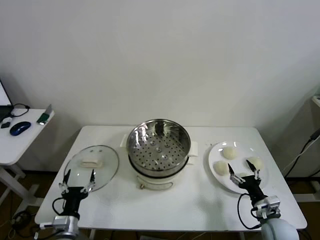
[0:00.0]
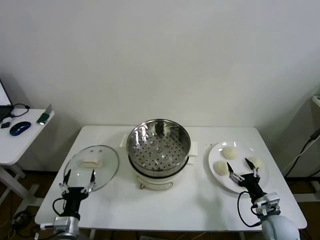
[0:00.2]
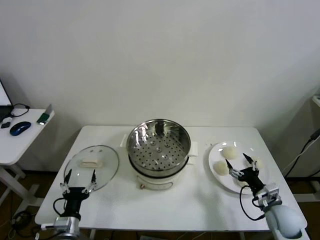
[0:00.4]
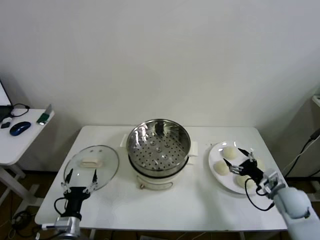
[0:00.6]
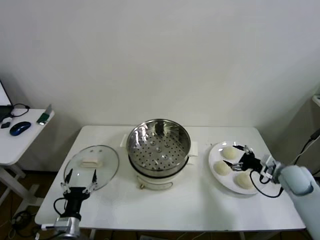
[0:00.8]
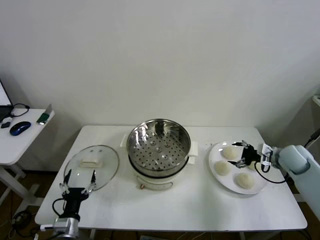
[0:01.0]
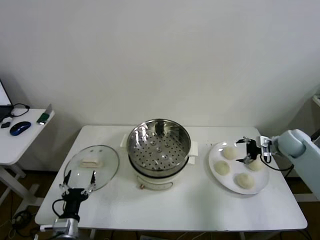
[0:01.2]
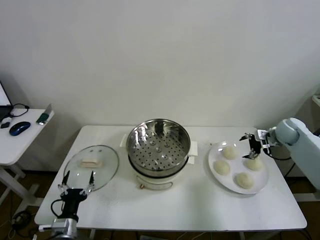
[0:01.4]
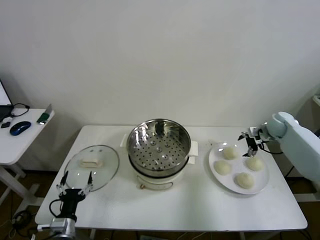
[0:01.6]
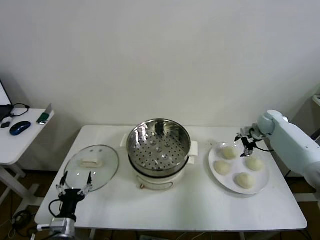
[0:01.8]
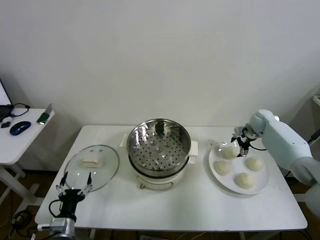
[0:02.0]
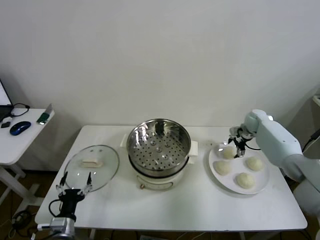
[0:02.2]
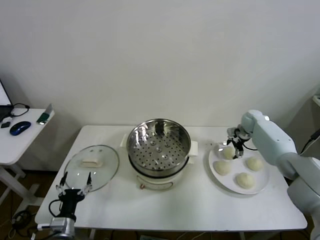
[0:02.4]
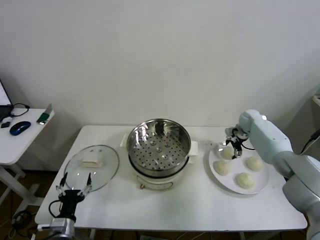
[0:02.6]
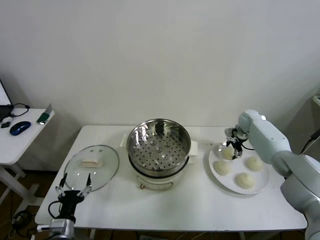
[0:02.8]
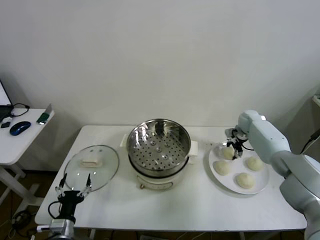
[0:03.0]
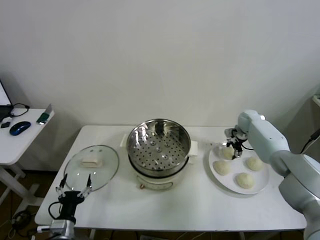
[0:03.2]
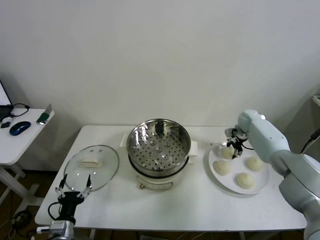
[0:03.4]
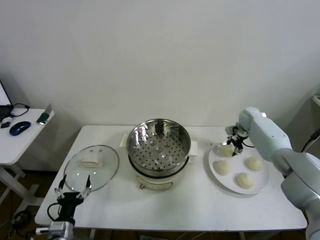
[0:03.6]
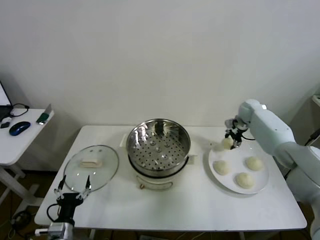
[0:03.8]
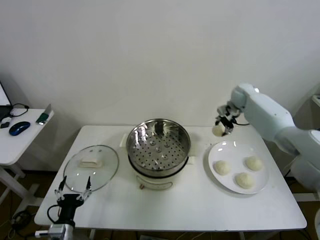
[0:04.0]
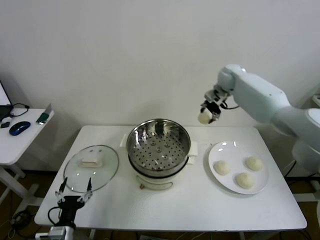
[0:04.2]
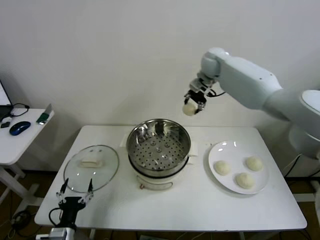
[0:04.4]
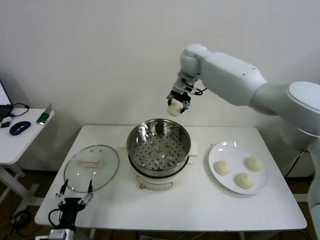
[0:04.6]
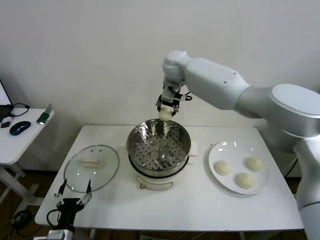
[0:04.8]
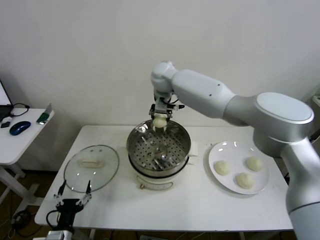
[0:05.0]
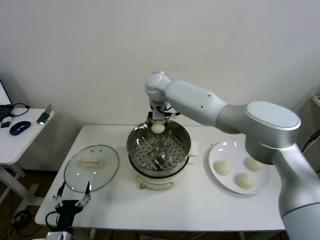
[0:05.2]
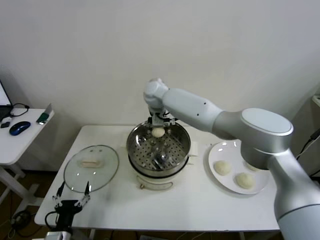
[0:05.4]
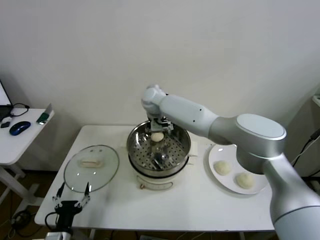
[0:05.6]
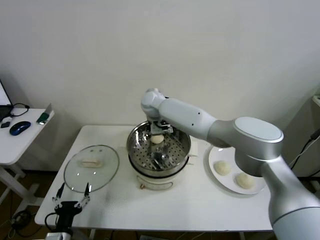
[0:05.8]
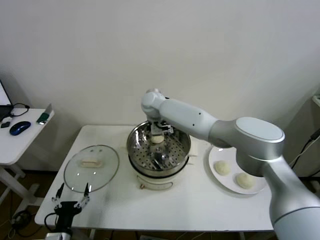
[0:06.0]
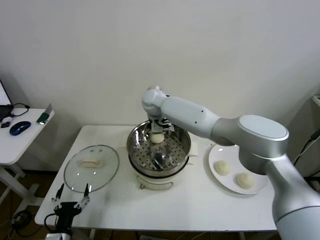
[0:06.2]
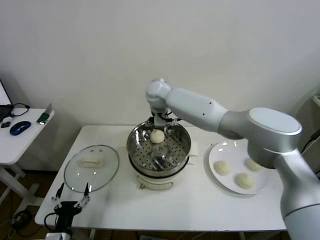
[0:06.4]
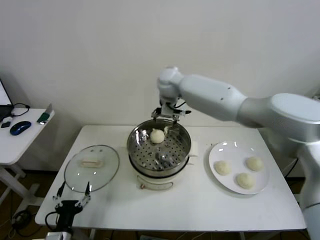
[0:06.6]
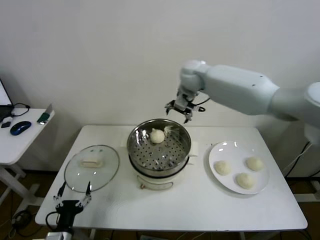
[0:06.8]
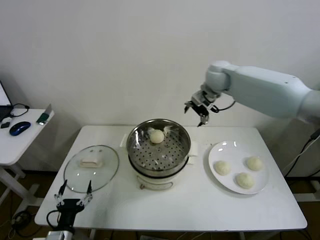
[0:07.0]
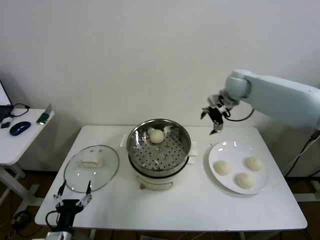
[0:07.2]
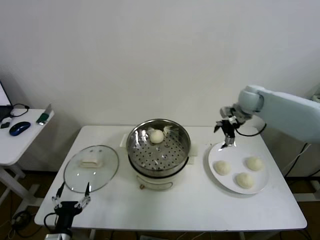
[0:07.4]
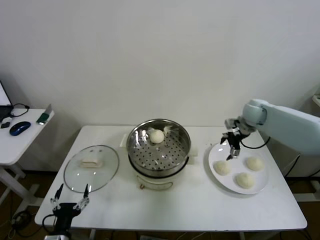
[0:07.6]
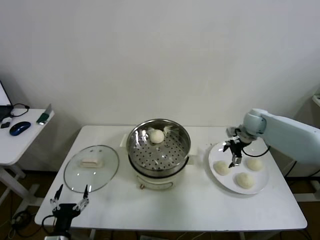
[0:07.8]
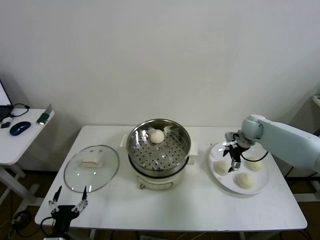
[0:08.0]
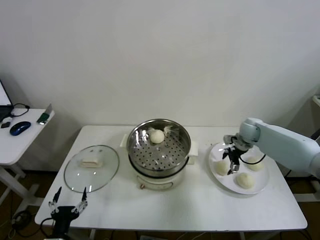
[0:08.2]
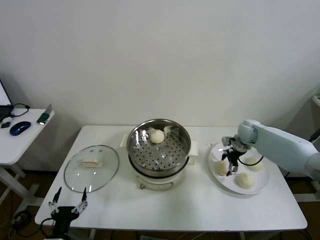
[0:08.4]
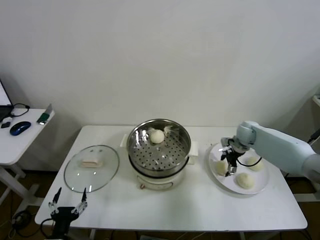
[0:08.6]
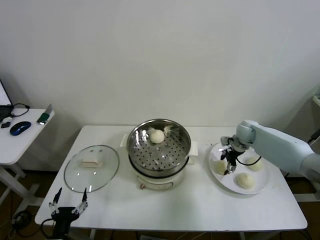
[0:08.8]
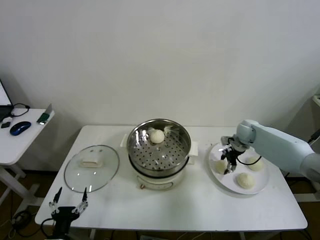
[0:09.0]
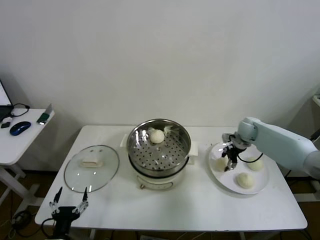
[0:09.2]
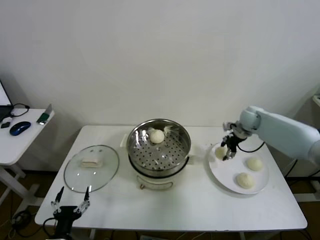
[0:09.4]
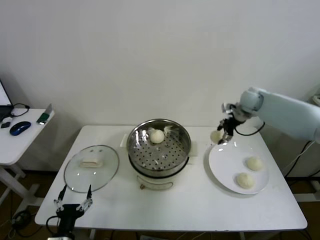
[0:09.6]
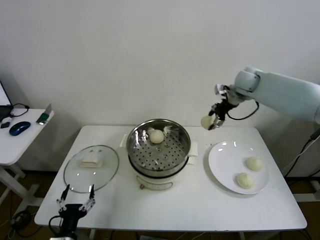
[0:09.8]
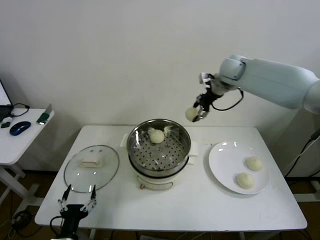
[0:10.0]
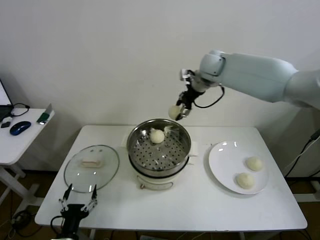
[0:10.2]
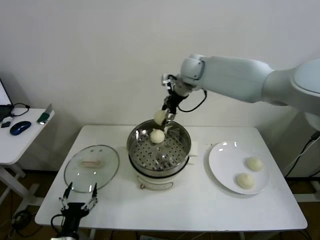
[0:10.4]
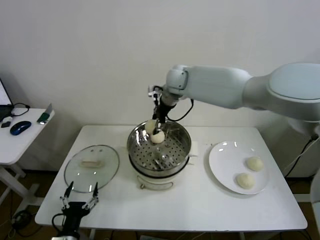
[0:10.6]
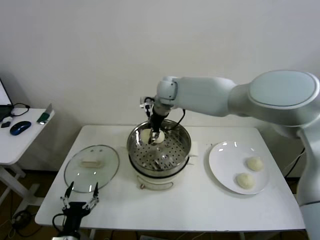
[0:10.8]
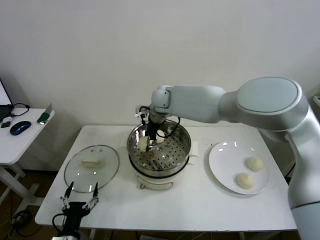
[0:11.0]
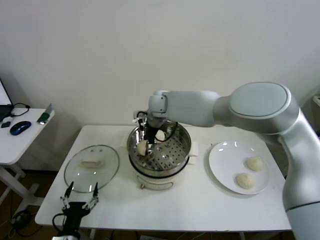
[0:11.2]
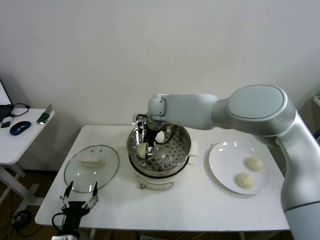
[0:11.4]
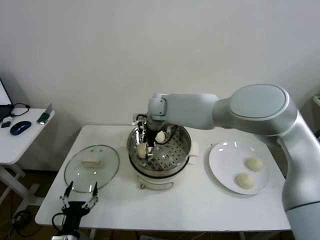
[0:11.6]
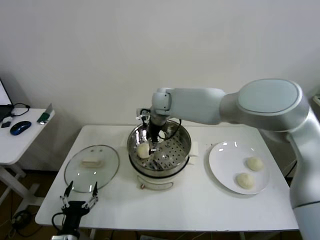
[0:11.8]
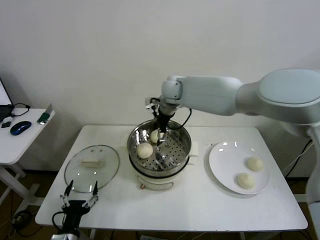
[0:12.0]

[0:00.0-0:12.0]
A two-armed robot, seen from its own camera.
Step, 0:00.0 to 0:03.2: Grasp the baozi in the plate with right gripper.
Step, 0:03.6 to 0:06.0: Place the baozi on the steamer with right gripper.
Step, 0:06.2 to 0:08.8: Grasp the baozi in the plate with right gripper.
Step, 0:09.2 to 0:11.6: Place the baozi on the steamer with right gripper.
0:01.6 to 0:03.0: The right gripper heads to the left and forward, covering roughly 10 cm, and closes up.
0:03.0 to 0:04.4: The right gripper goes roughly 35 cm upward and to the left.
0:04.4 to 0:06.0: The right gripper goes about 25 cm to the left and downward, and opens.
0:06.0 to 0:07.6: The right gripper travels to the right by approximately 40 cm.
0:07.6 to 0:09.0: The right gripper travels downward by some 10 cm, and closes up.
0:09.0 to 0:10.4: The right gripper goes approximately 35 cm to the left and upward.
0:10.4 to 0:12.0: The right gripper opens its fingers.

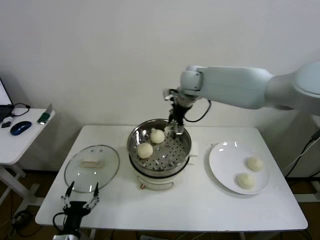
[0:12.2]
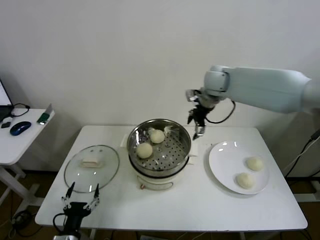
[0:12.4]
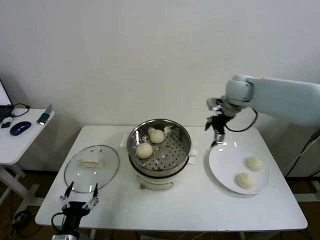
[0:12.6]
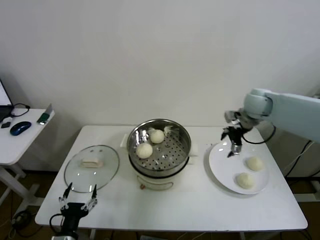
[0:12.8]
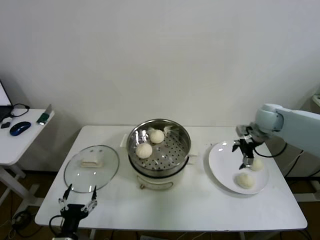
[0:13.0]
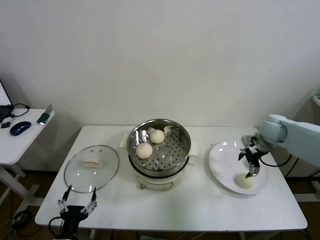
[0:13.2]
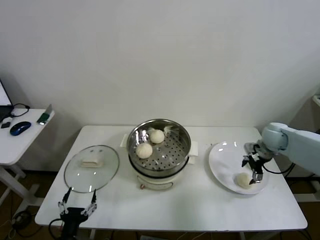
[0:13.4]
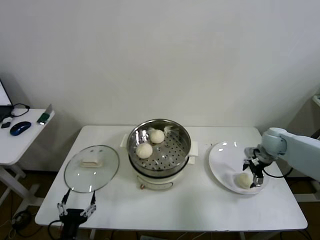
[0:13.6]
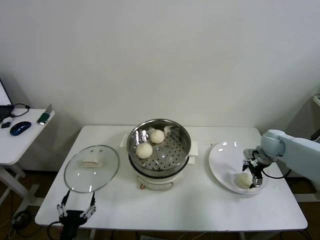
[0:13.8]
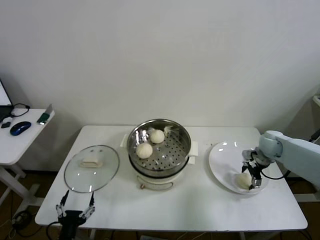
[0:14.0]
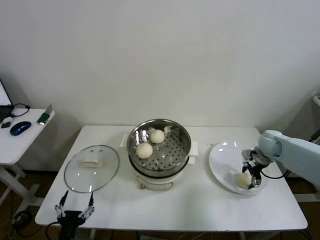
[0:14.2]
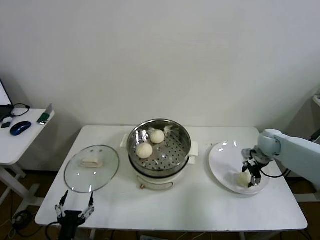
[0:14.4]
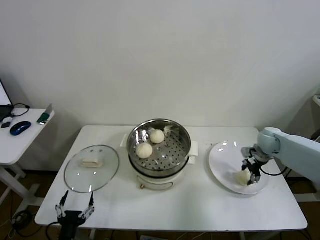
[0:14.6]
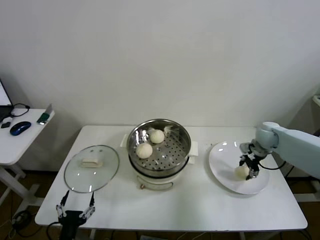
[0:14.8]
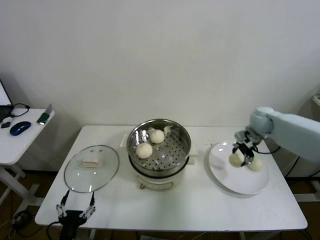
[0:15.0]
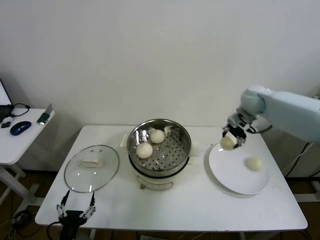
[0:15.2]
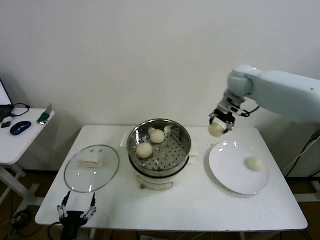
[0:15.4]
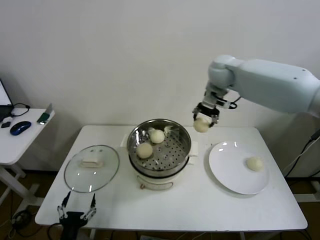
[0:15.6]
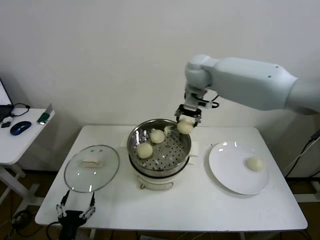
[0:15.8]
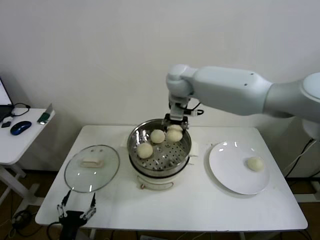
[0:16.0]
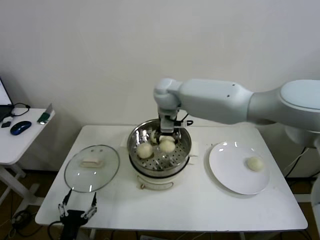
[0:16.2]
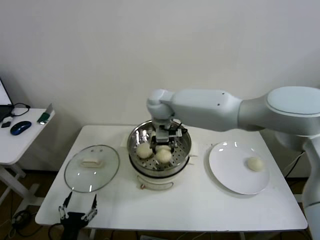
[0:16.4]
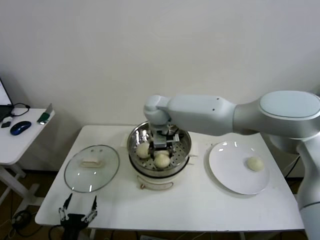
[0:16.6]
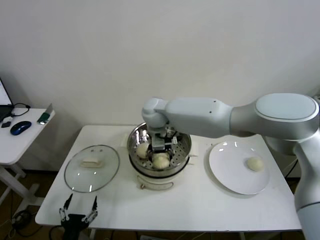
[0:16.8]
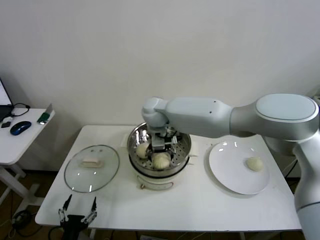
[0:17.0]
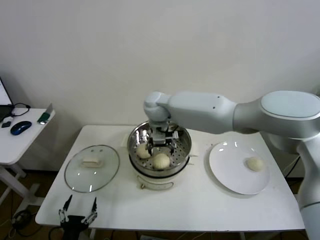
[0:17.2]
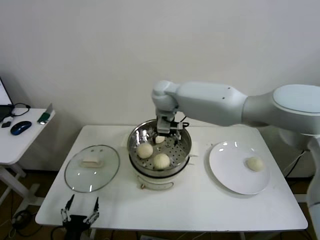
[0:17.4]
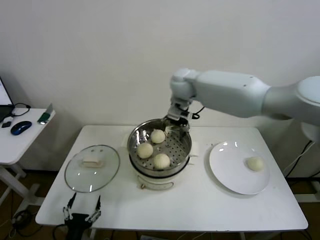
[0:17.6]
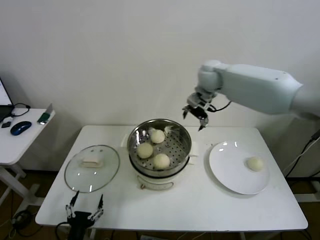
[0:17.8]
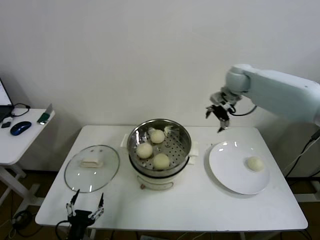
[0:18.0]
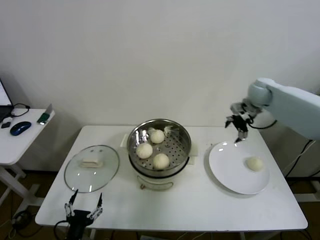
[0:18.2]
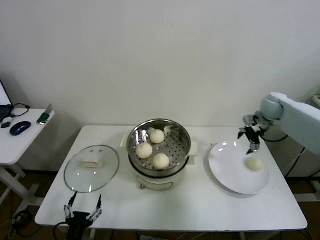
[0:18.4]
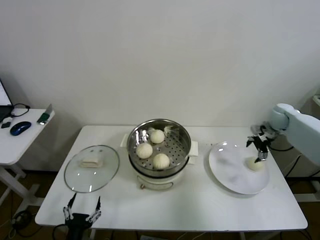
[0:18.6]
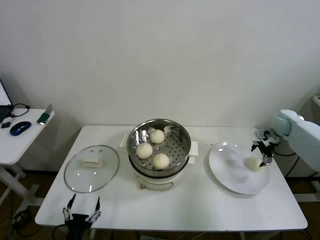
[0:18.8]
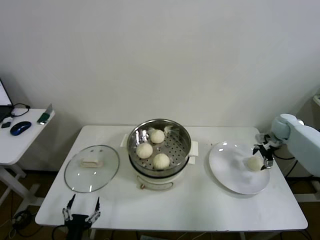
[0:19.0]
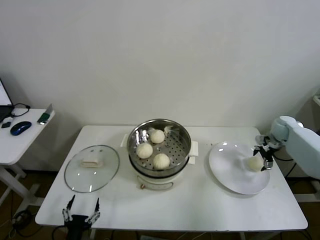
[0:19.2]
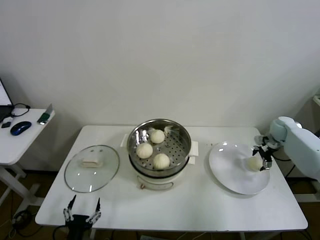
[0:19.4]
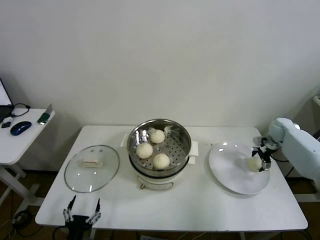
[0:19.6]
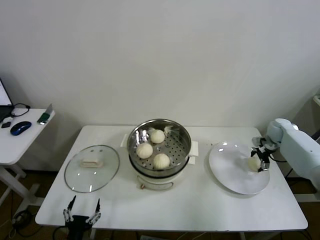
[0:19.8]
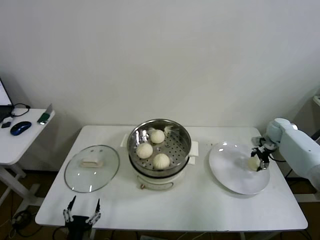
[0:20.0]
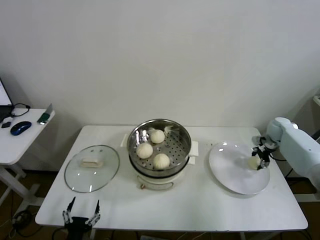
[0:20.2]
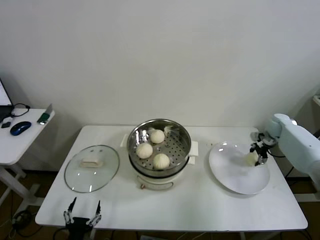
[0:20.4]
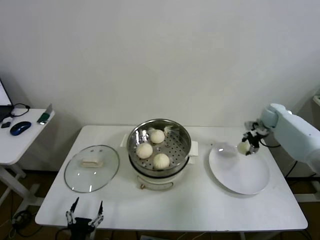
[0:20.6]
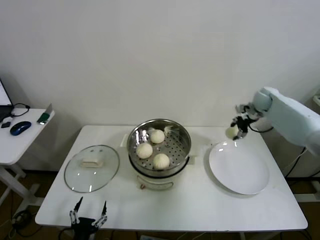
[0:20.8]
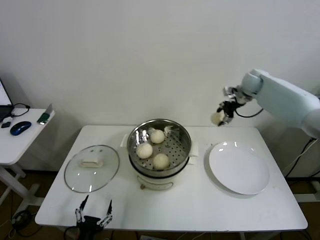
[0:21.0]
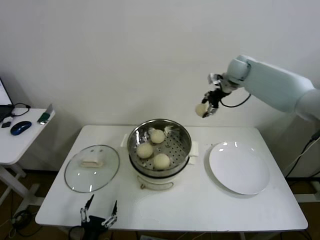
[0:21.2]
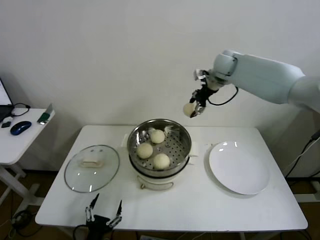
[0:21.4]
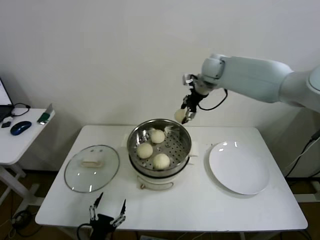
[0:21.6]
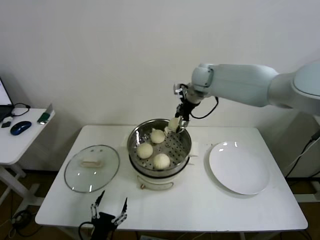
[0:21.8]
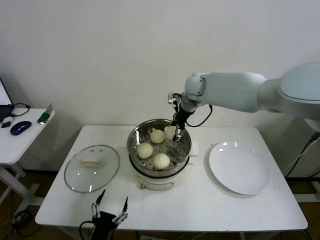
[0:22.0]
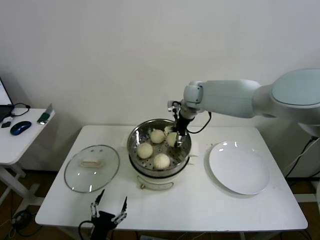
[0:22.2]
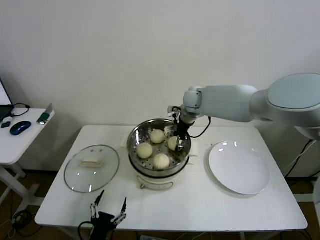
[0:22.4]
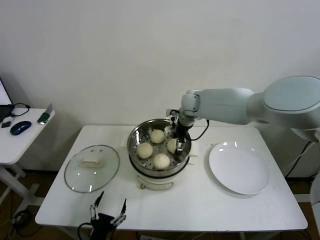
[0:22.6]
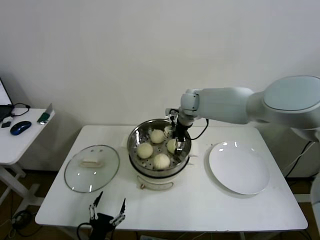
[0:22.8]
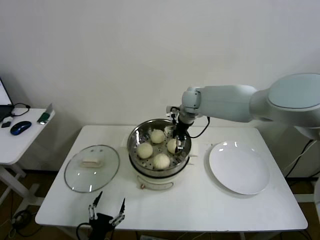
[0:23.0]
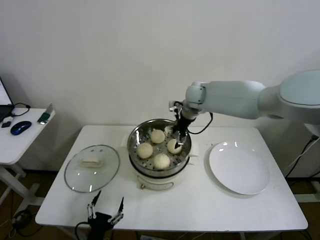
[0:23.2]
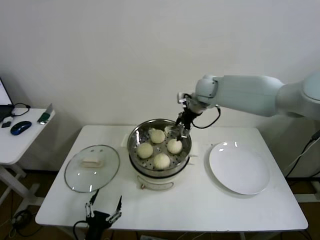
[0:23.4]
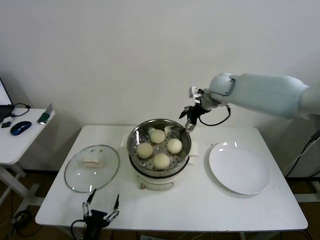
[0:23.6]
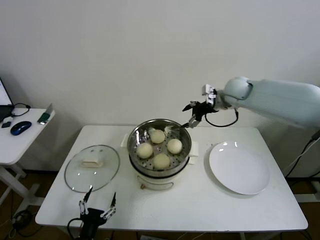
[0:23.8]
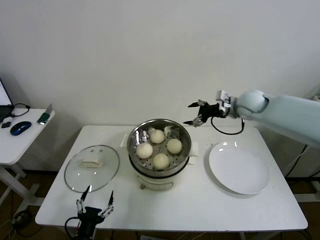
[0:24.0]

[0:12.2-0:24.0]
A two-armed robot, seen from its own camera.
Step, 0:12.2 to 0:14.4: Grasp the baozi in the plate with right gripper.
Step, 0:14.6 to 0:17.0: Place the baozi on the steamer with right gripper.
Step, 0:17.2 to 0:20.0: Grasp the baozi in the plate with right gripper.
Step, 0:20.2 to 0:22.8: Place the baozi on the steamer with right gripper.
0:12.2 to 0:13.6: The right gripper goes approximately 35 cm to the right and downward.
0:13.6 to 0:15.2: The right gripper goes approximately 20 cm upward, to the left and forward, and closes up.
0:15.2 to 0:16.6: The right gripper shifts approximately 35 cm to the left.
0:16.6 to 0:18.2: The right gripper shifts some 40 cm to the right, and opens up.
0:18.2 to 0:19.6: The right gripper goes about 20 cm downward and to the right.
0:19.6 to 0:21.0: The right gripper shifts about 25 cm upward, to the left and forward, and closes up.
0:21.0 to 0:22.6: The right gripper heads to the left, covering roughly 25 cm, and opens its fingers.
0:22.6 to 0:24.0: The right gripper goes approximately 20 cm to the right, and opens up.
